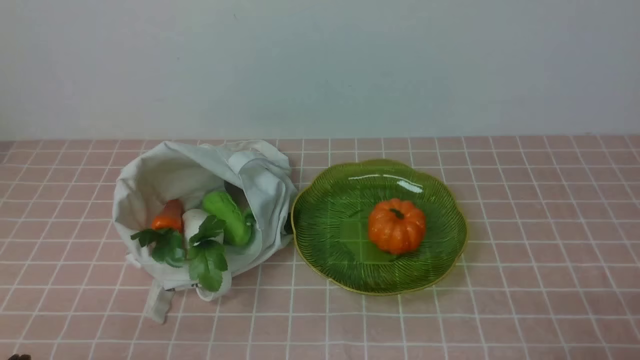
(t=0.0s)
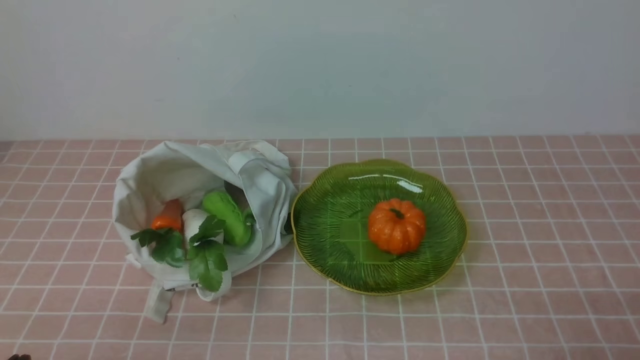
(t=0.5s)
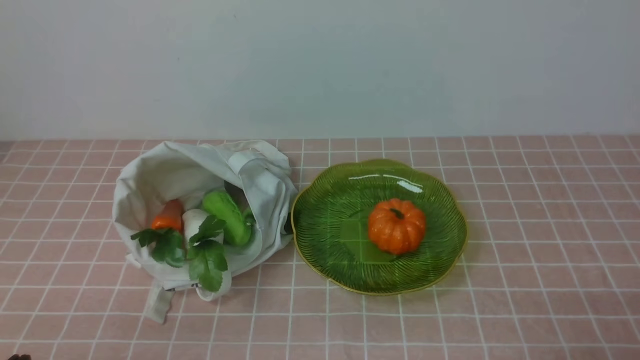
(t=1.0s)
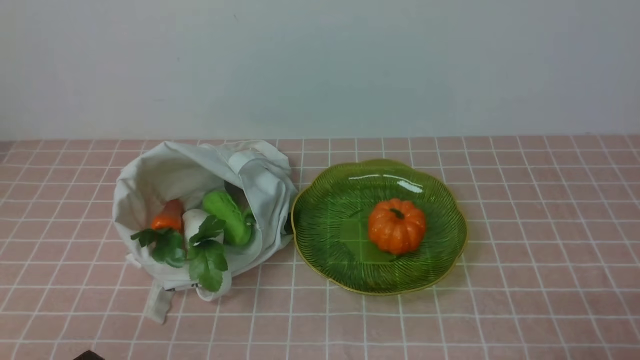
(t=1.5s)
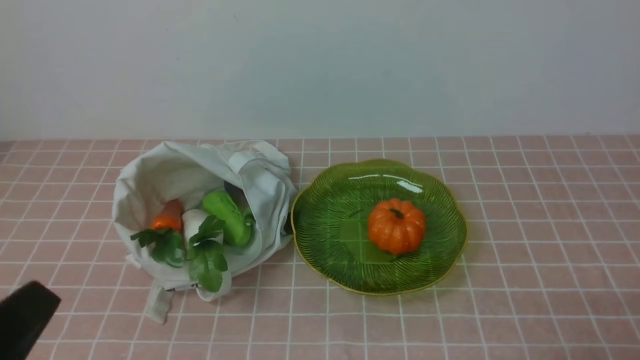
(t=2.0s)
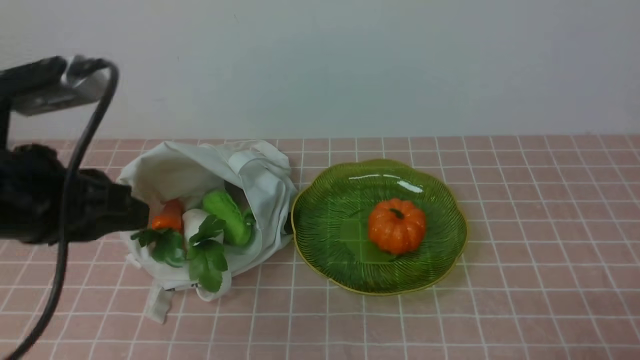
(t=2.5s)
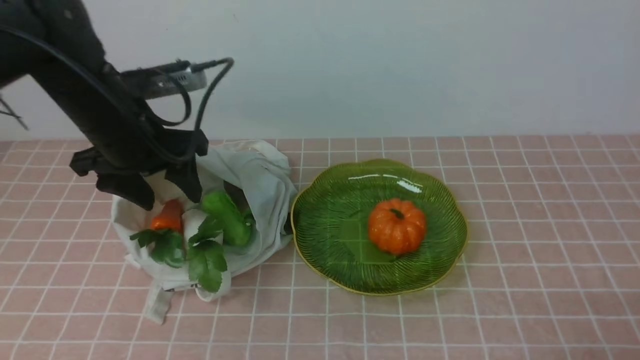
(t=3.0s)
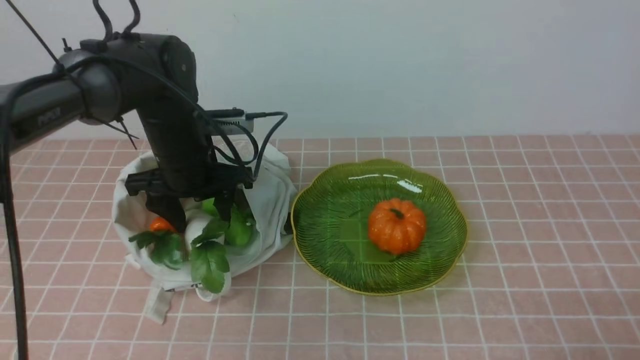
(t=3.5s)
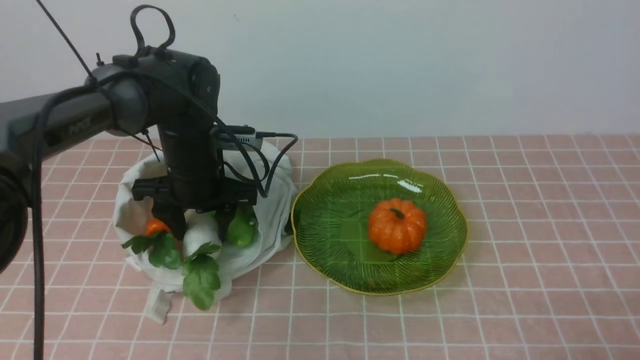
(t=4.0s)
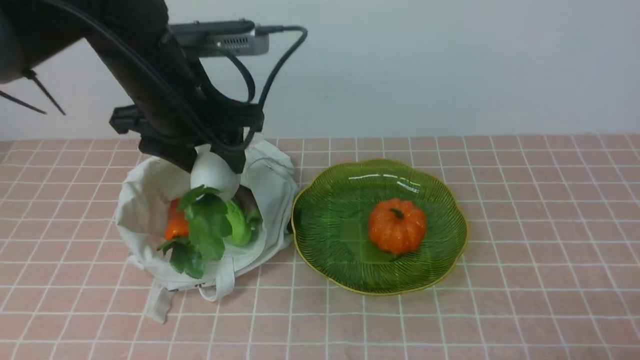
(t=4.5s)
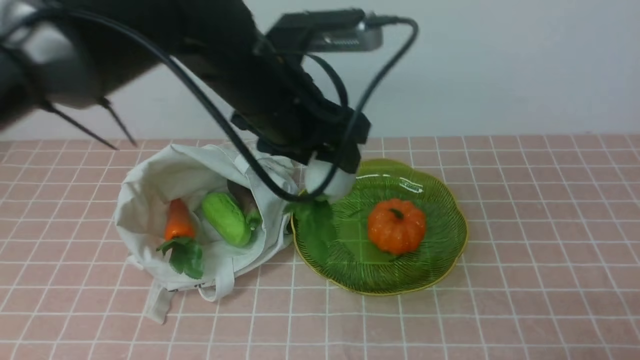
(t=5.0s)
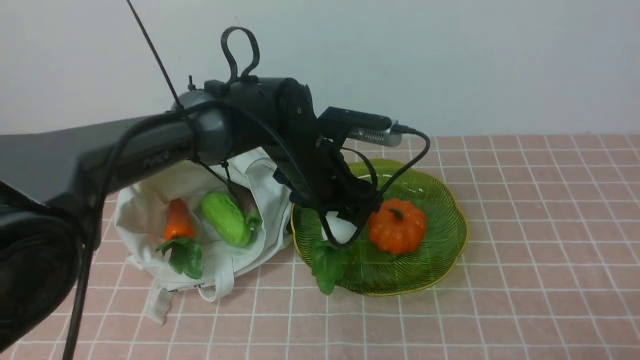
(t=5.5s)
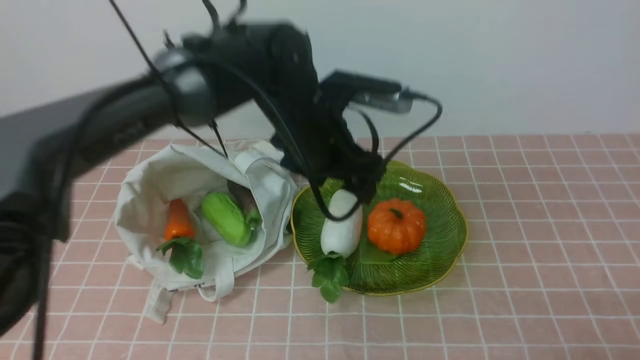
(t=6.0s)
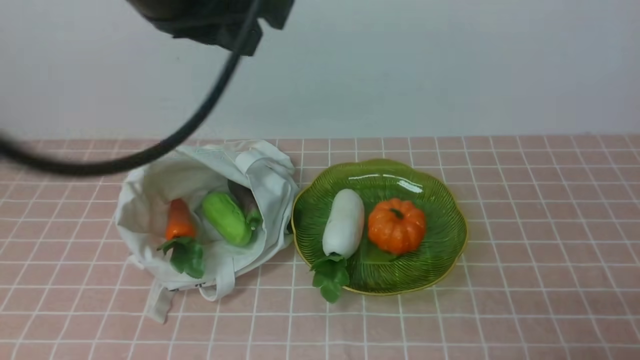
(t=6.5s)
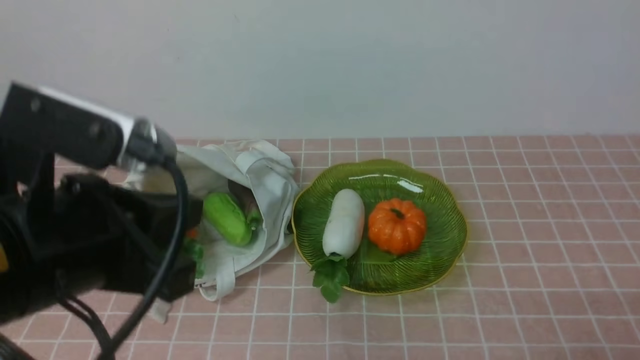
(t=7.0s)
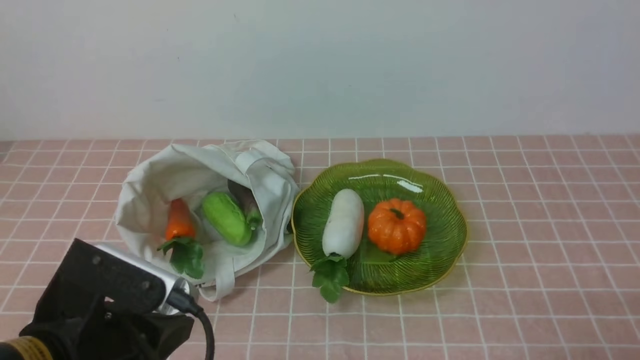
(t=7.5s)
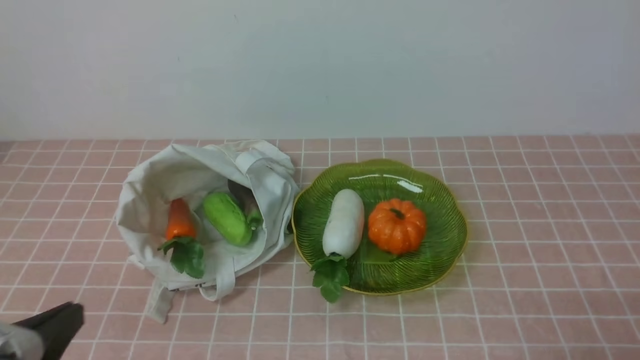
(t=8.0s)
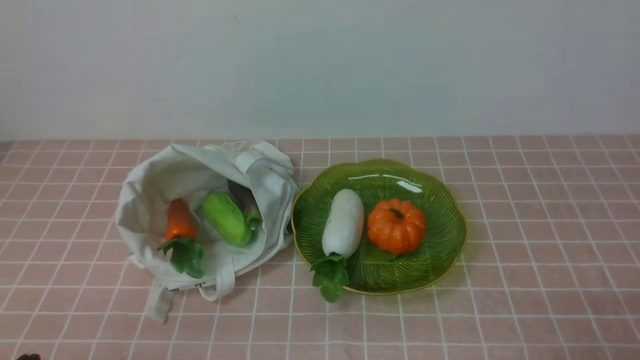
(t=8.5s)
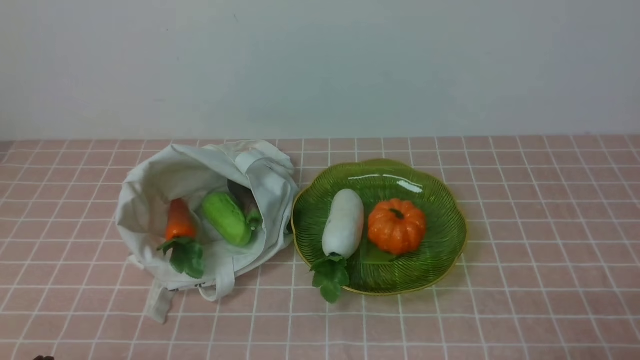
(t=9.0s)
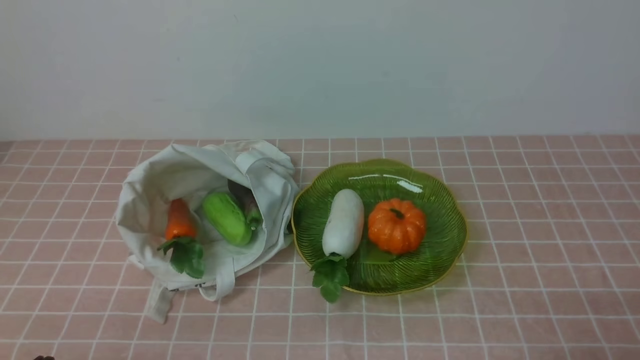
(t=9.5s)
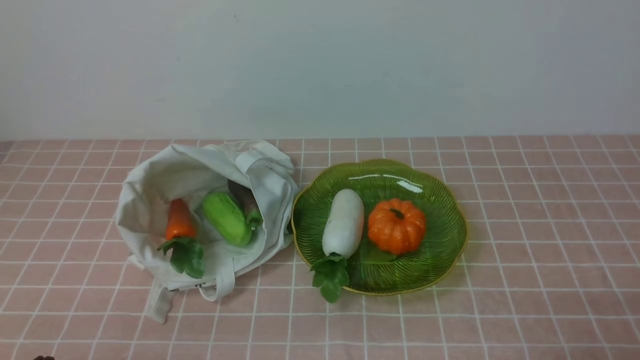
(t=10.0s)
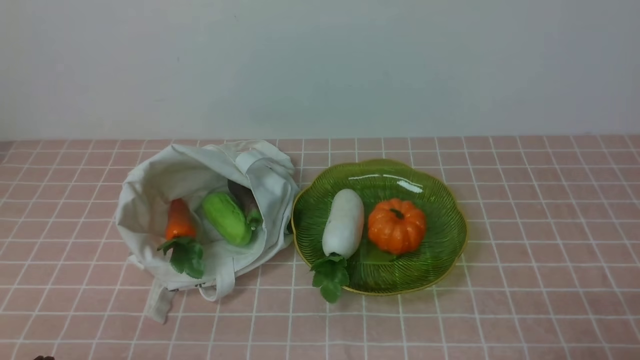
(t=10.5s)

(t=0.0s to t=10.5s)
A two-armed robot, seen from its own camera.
Task of the whole recording: take vegetables from bag on pink coffee tablecloth place on plate.
Step, t=0.0s - t=3.5s: Grasp the radish with left gripper.
Step, t=4.0s - t=6.0s: Place the radish on the plate with left gripper.
t=2.0s - t=4.0s: The left gripper heads forward, covering approximately 35 cm, and opens up.
t=4.0s - t=6.5s: The left gripper goes up and down, roughly 25 cm each way, reversing 2 times, and closes up.
t=6.5s - t=8.5s: The left gripper moves downward, backward and to the left, about 40 cm.
t=8.5s - t=10.5s: Both grippers stay about where they are.

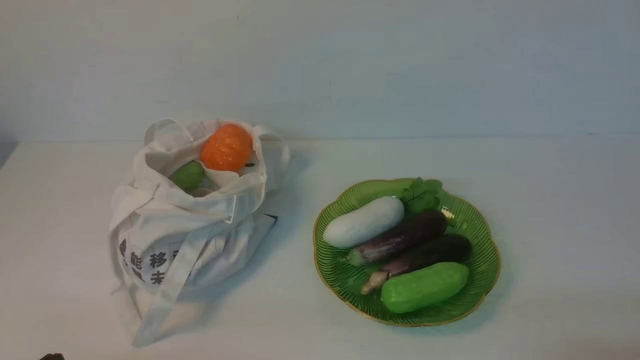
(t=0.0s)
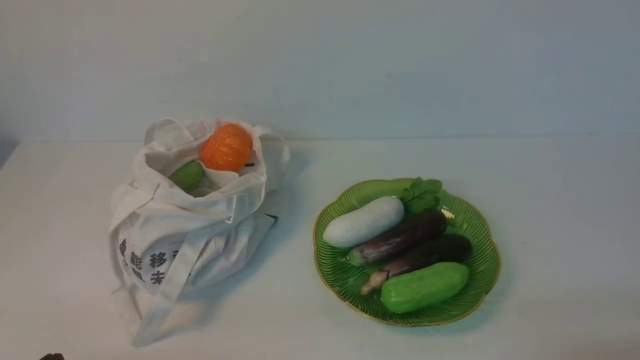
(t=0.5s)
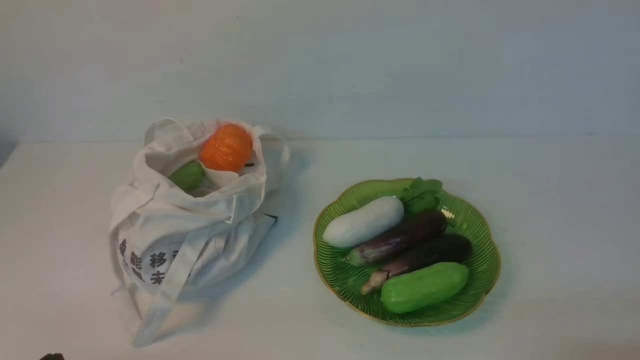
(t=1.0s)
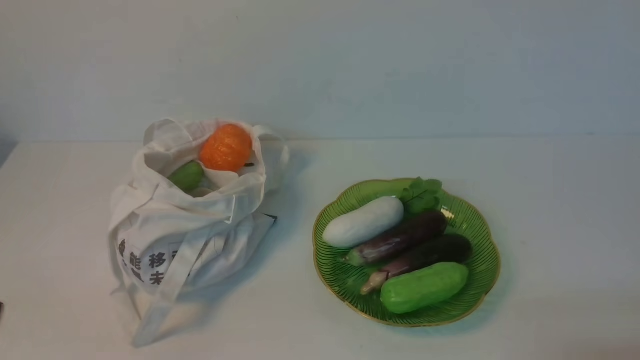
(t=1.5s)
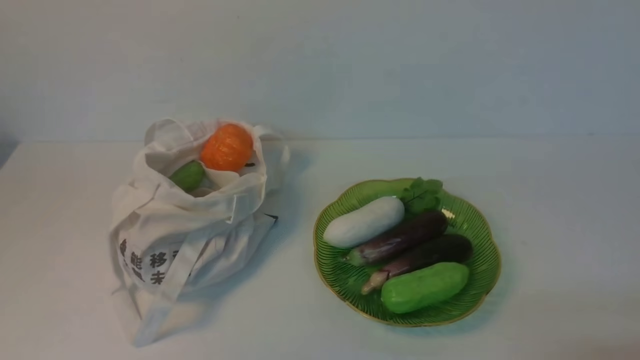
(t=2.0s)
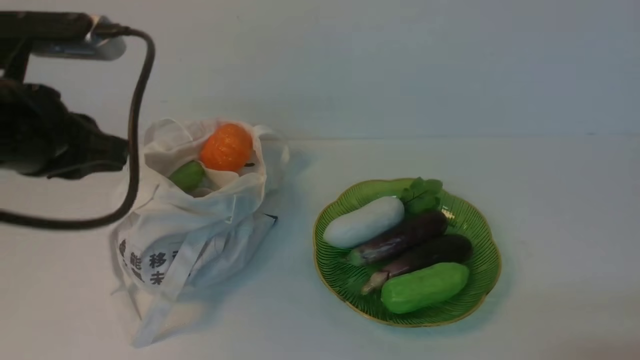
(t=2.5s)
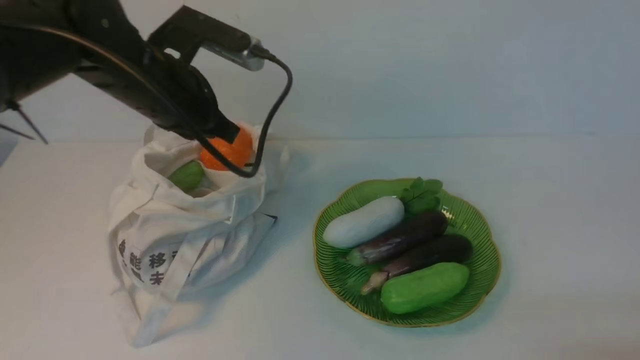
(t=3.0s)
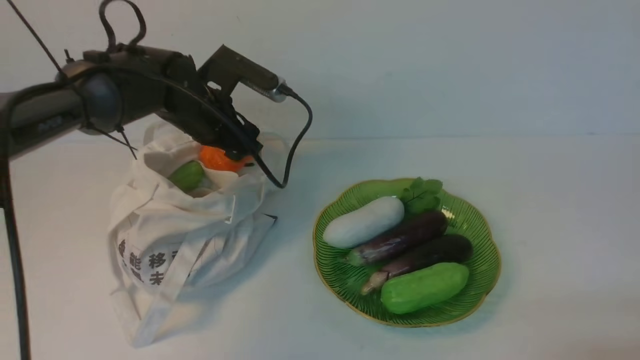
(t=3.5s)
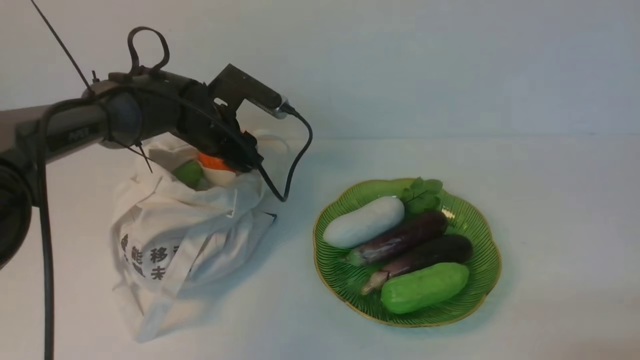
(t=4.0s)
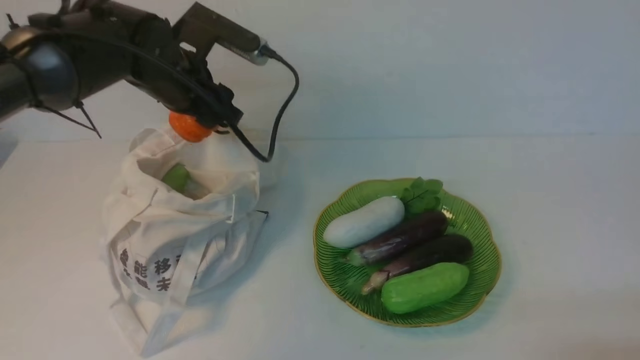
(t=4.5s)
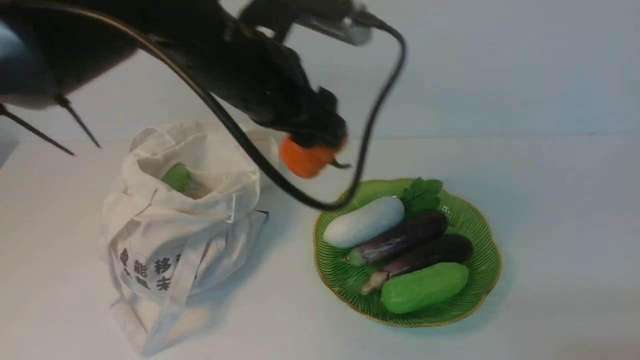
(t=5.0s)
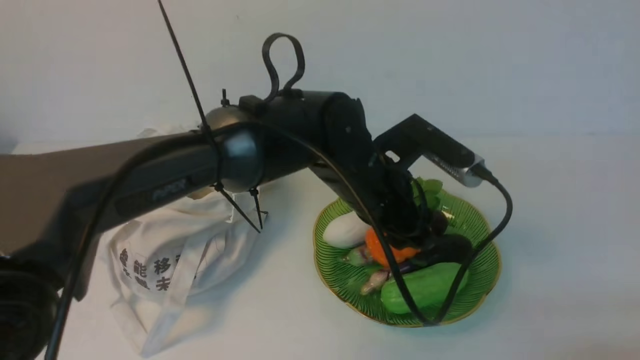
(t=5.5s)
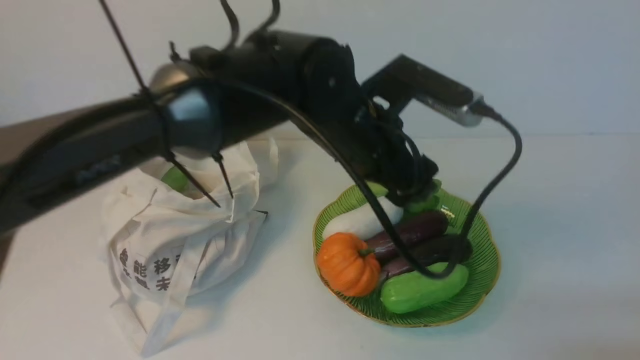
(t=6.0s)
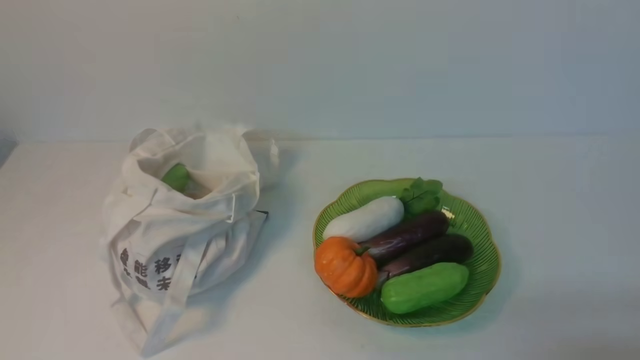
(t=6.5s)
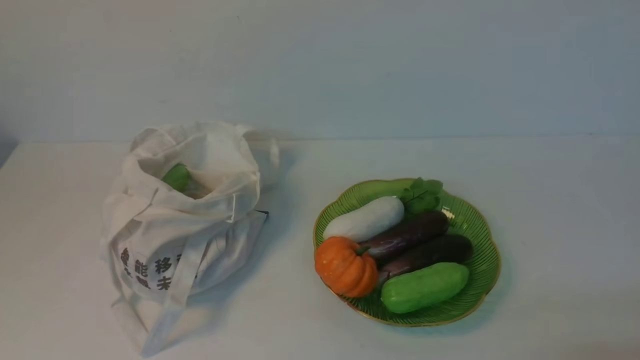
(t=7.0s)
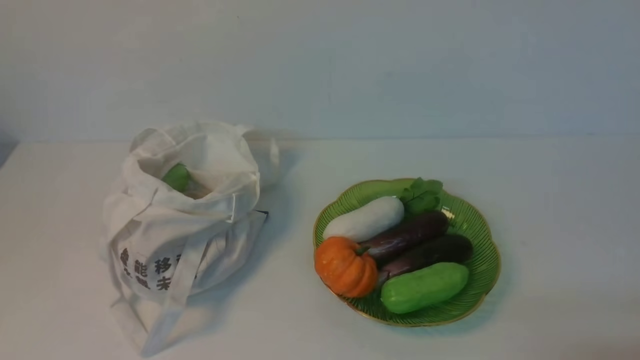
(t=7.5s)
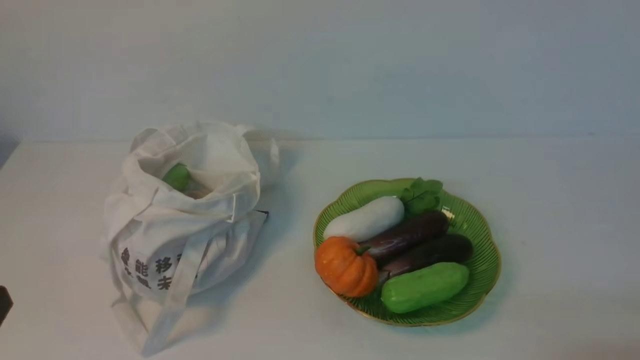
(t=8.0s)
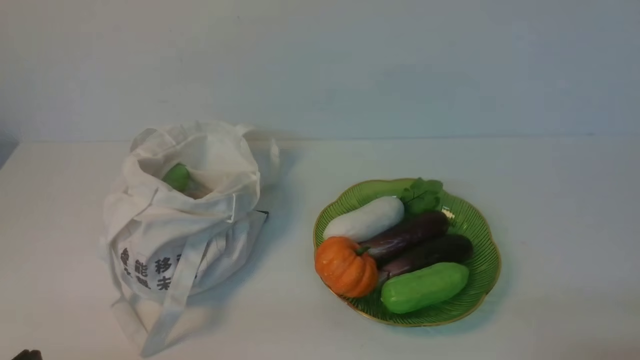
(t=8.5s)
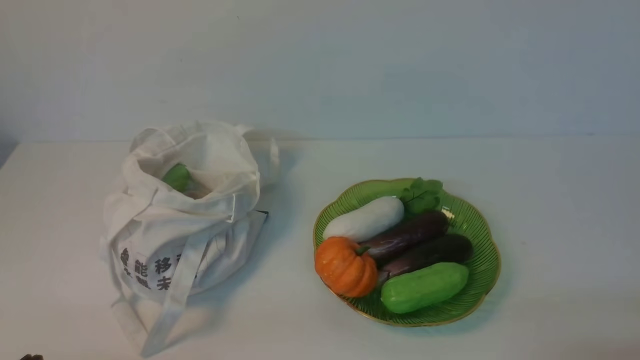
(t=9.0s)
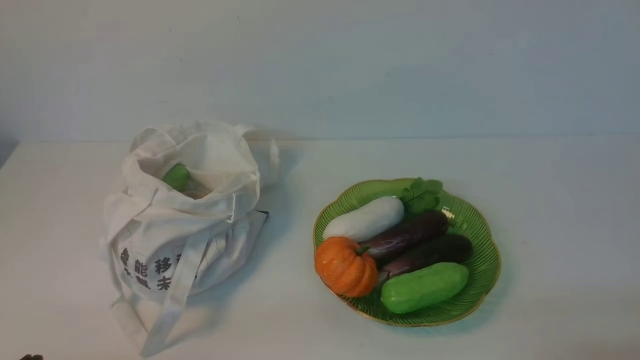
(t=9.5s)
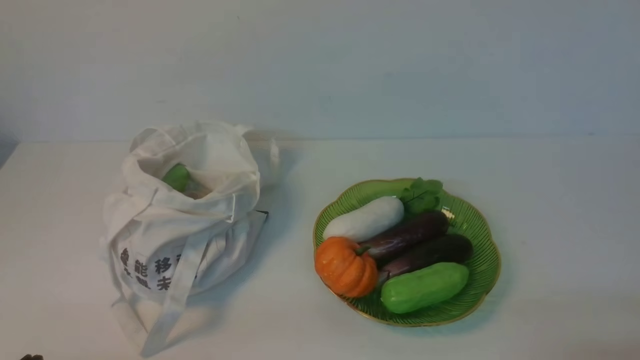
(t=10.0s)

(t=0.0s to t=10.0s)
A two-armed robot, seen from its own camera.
Task of the whole recording: take vegetables from cloth bag on white table place on plate.
Step, t=0.0s - t=4.0s: Grasp the pumpkin with left gripper.
Step, t=4.5s - t=5.5s: Place the pumpkin on the plate with left gripper.
t=2.0s - t=4.0s: The left gripper travels forward and downward by about 40 cm, and opens.
t=4.0s - t=6.0s: The left gripper is displaced to the right, backward and upward by approximately 25 cm.
t=6.0s - t=8.0s: The left gripper heads backward and to the left, covering about 35 cm, and closes its fingers.
